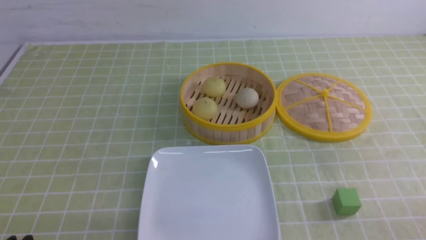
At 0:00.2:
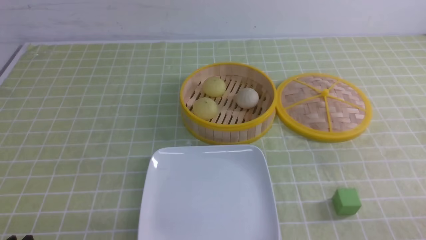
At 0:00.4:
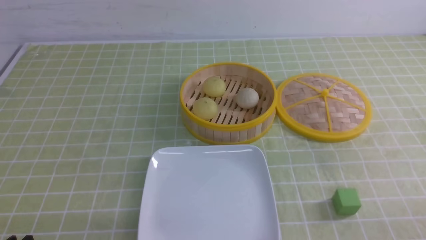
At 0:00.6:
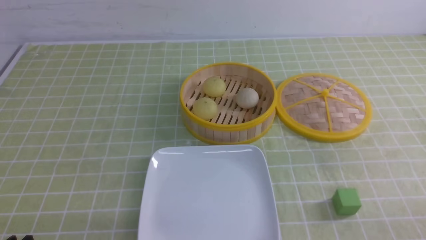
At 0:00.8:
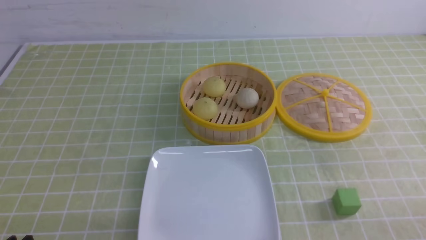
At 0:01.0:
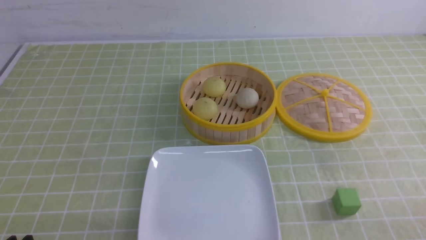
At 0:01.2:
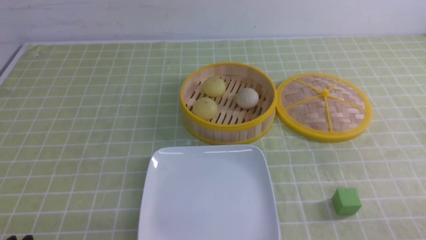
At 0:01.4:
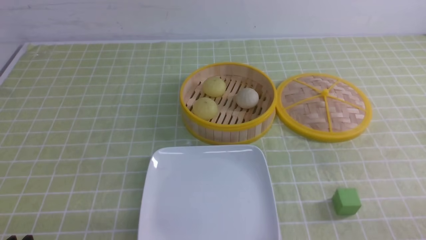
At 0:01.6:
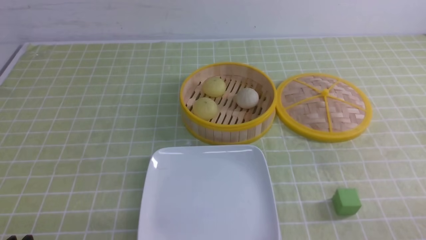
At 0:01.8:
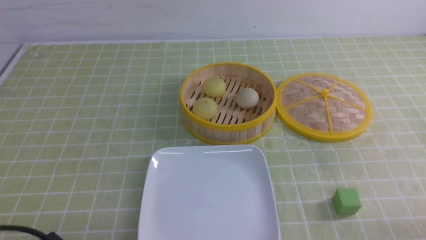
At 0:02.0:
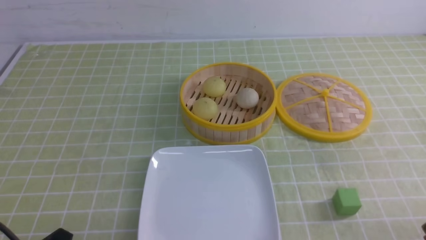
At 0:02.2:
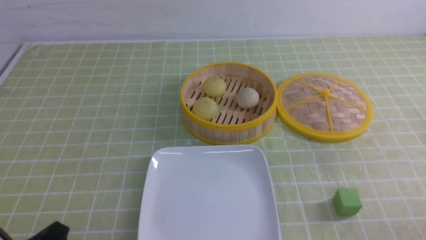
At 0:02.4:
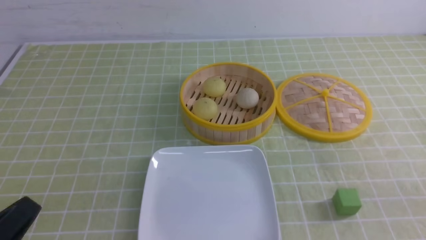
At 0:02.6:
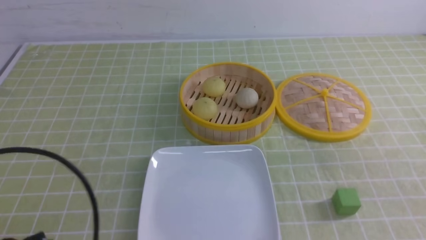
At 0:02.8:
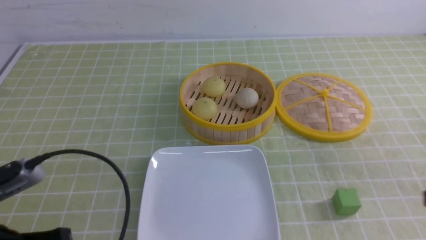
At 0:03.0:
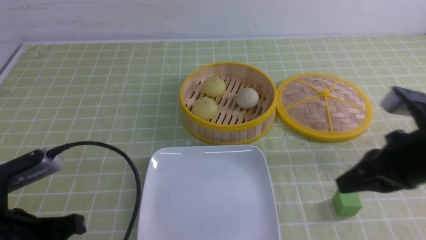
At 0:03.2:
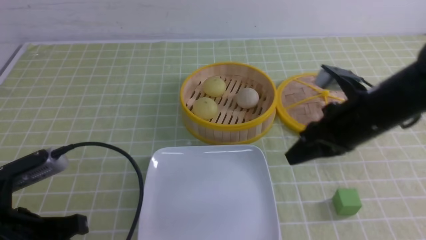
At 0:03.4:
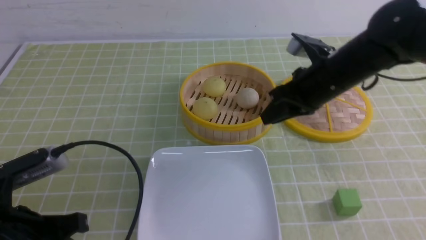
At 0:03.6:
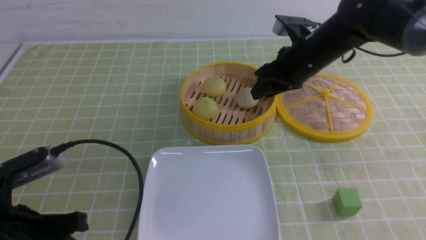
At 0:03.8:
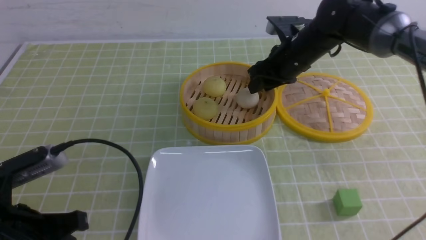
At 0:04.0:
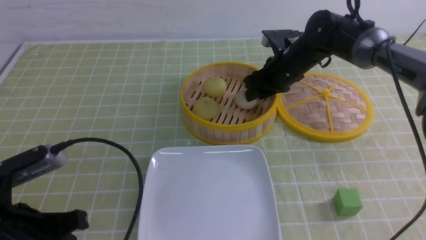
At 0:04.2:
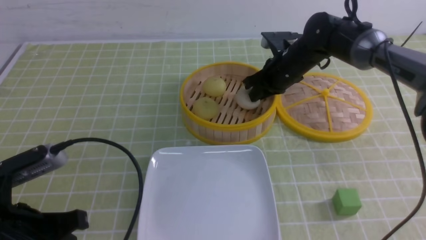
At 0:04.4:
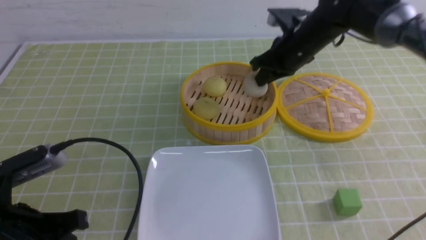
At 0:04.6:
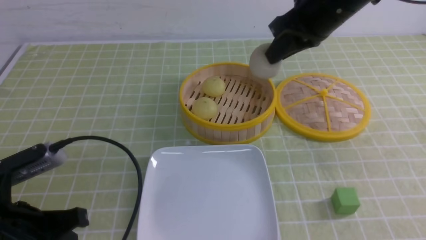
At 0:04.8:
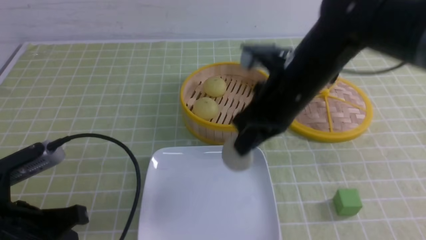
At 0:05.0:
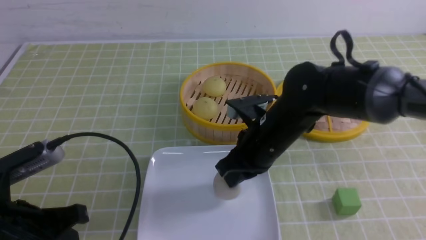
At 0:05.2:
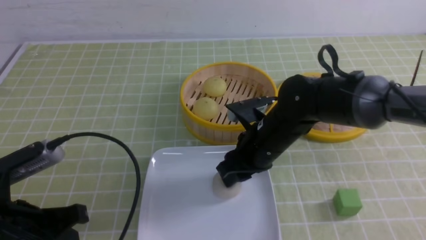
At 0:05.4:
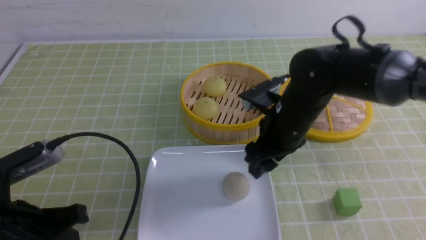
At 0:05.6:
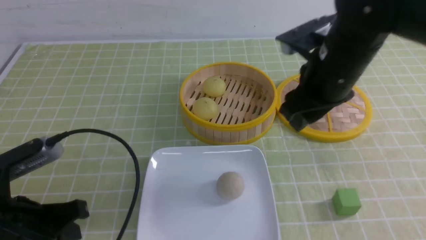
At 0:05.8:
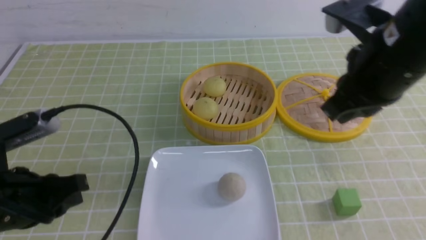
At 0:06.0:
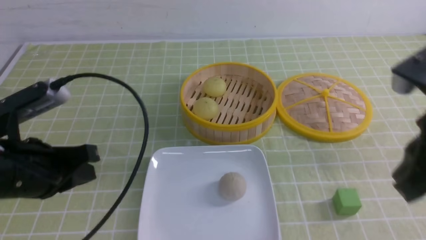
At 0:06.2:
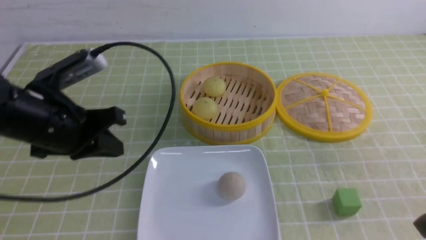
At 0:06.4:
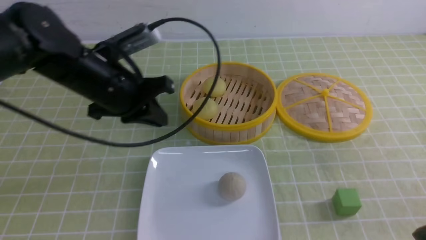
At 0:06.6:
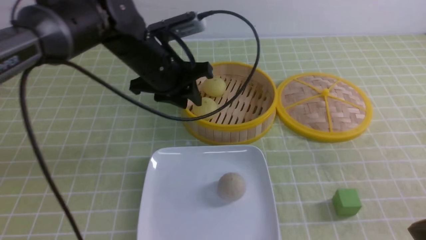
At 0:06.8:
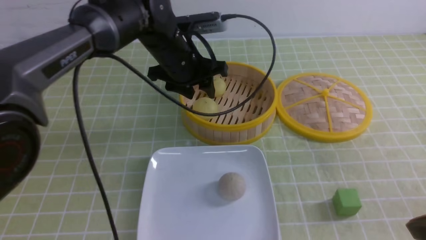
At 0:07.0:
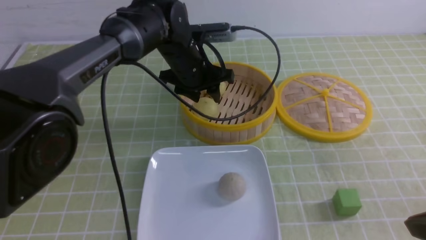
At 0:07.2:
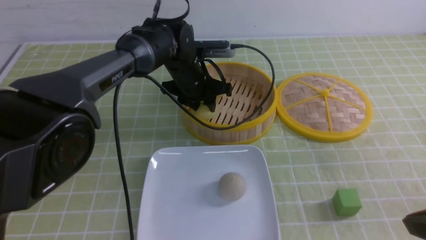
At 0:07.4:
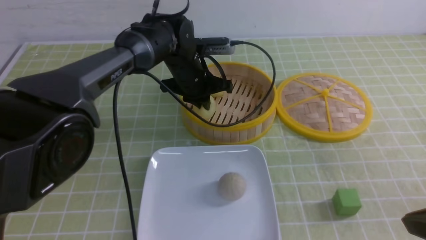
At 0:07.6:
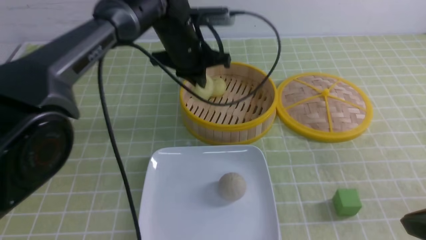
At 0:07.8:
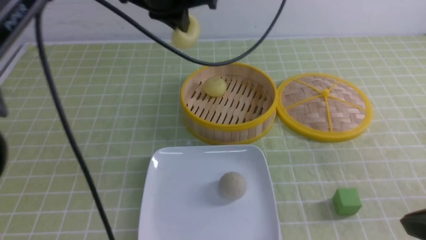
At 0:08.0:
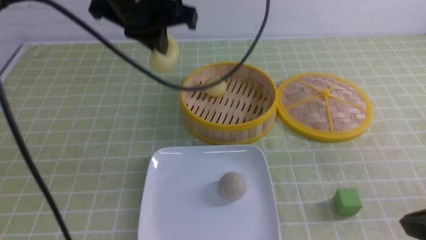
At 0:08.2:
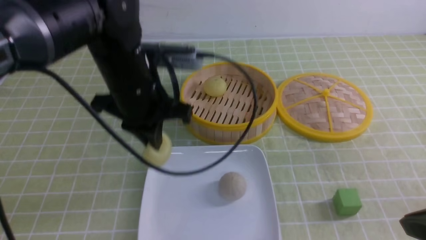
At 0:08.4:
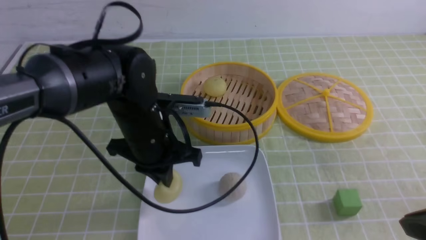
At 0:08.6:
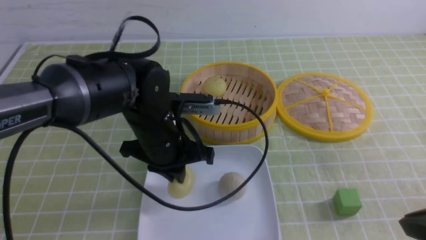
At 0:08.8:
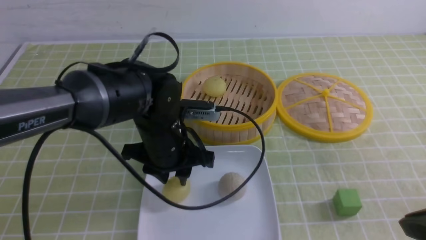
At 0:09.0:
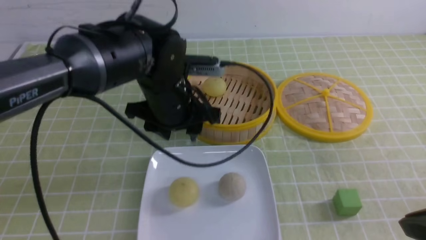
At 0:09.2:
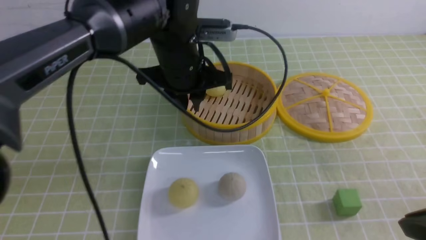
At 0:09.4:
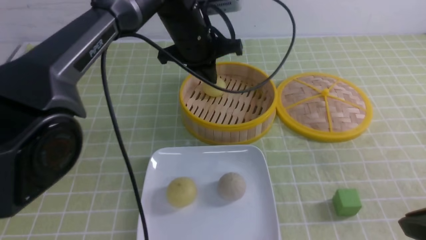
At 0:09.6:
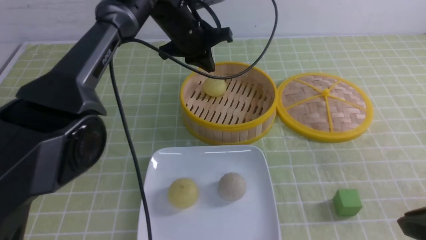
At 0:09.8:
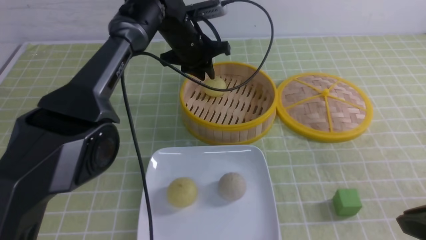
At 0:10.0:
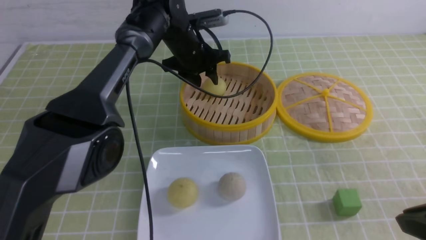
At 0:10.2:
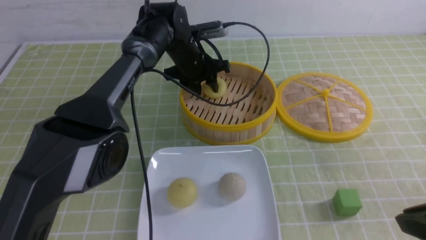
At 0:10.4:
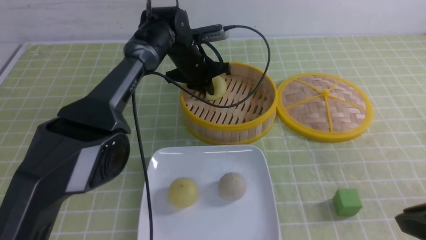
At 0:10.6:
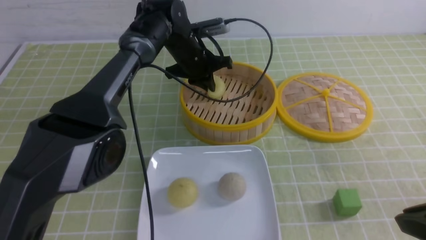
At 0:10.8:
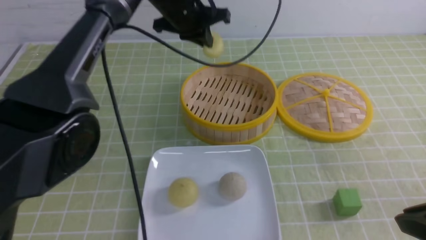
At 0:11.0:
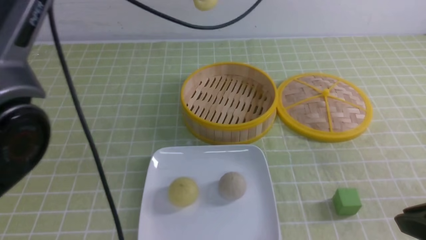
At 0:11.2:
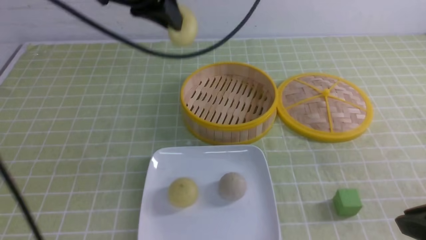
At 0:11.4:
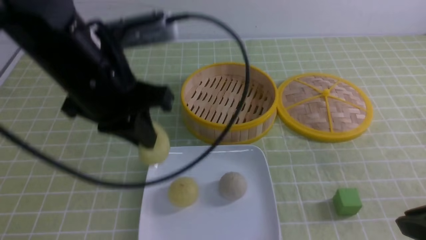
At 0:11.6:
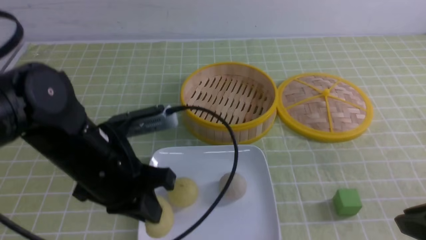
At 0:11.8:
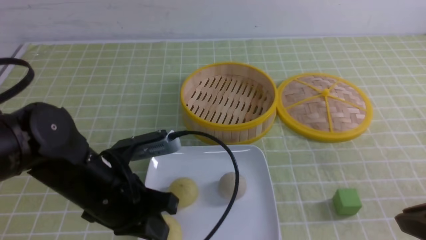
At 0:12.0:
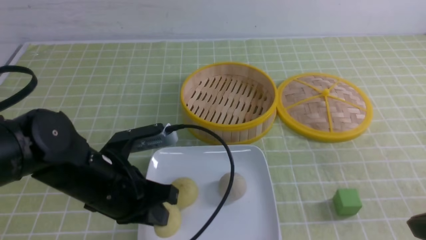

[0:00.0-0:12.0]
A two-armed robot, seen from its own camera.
Step, 0:00.0 to 0:04.2: use the right arm to grab the steamed stuffed bun that is closest to it.
Step, 0:04.4 to 0:05.2: use the right arm to put the steamed stuffed bun into the plate.
Step, 0:05.4 to 0:07.4: use the left arm to grab the steamed stuffed bun that is closest to it.
Step, 0:07.6 to 0:08.6: use the left arm to put the steamed stuffed bun into the plate.
Step, 0:08.8 to 0:10.4: use the left arm to grab the steamed stuffed bun that is closest to it.
0:01.6 to 0:03.0: The left gripper travels forward and upward by roughly 10 cm, and closes up. Meanwhile the right gripper moves forward, upward and to the left, roughly 20 cm, and closes.
0:03.0 to 0:04.4: The right gripper moves forward and to the left, approximately 25 cm, and opens and closes again.
0:04.4 to 0:06.0: The left gripper heads forward, covering some 5 cm, while the right gripper moves backward, approximately 25 cm, and opens, then closes again.
0:06.0 to 0:07.6: The right gripper is displaced downward and backward by approximately 10 cm. Meanwhile the left gripper goes some 30 cm forward and to the right, and opens, then closes again.
0:07.6 to 0:09.0: The left gripper moves up and down over some 15 cm, changing direction 2 times, and opens up.
0:09.0 to 0:10.4: The left gripper is displaced forward by roughly 20 cm, and closes.
0:10.4 to 0:12.0: The left gripper is displaced backward by roughly 30 cm.

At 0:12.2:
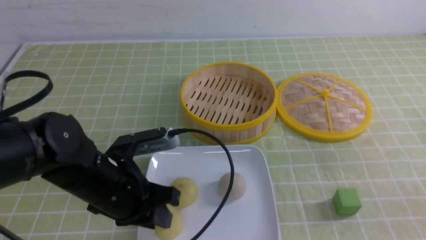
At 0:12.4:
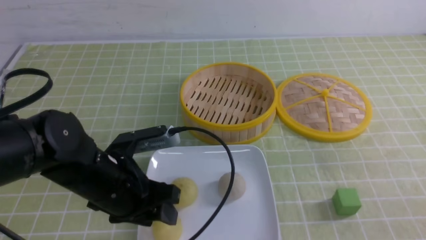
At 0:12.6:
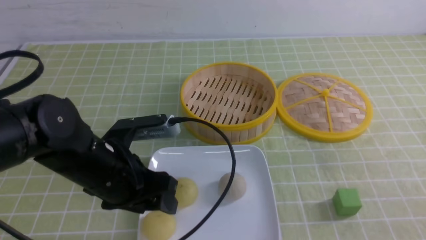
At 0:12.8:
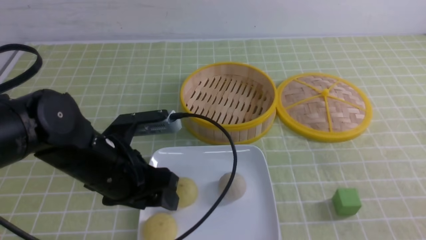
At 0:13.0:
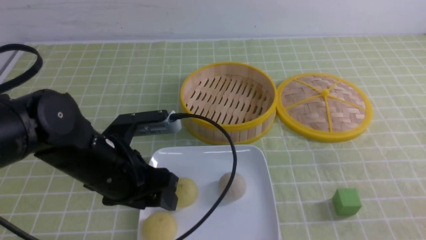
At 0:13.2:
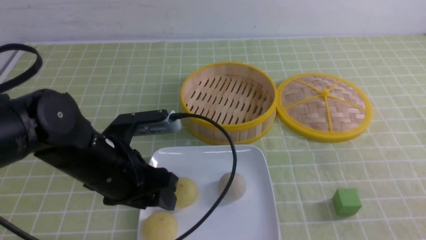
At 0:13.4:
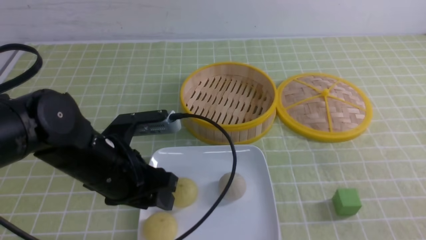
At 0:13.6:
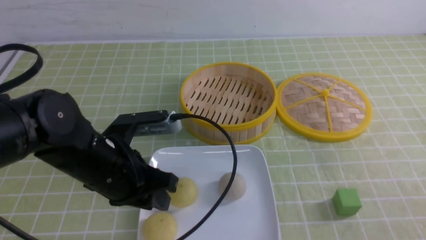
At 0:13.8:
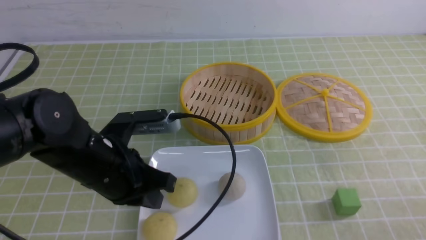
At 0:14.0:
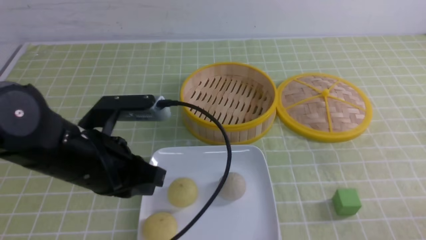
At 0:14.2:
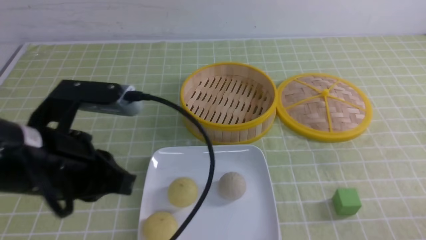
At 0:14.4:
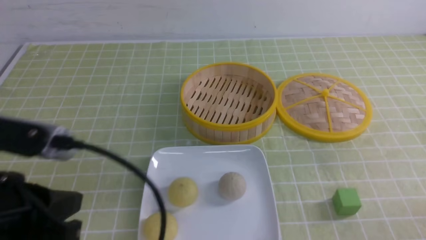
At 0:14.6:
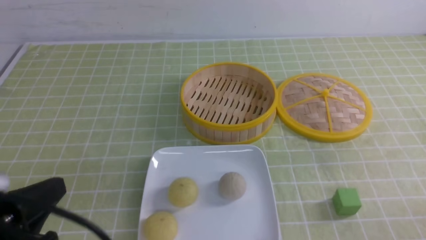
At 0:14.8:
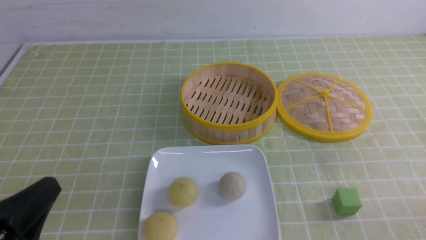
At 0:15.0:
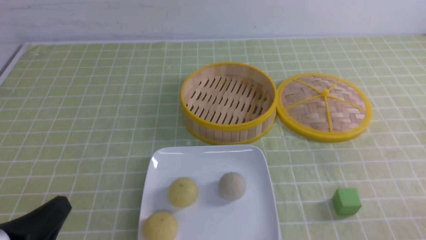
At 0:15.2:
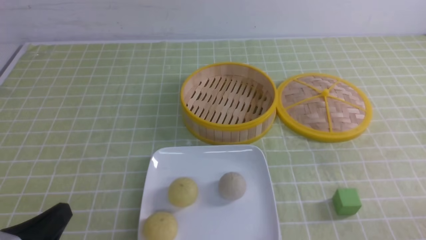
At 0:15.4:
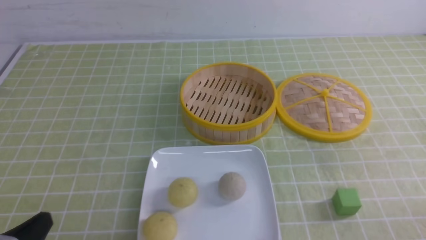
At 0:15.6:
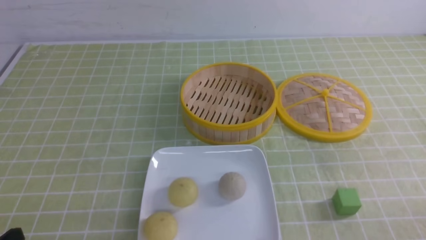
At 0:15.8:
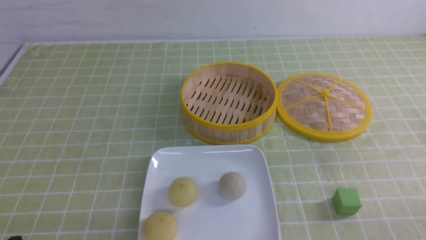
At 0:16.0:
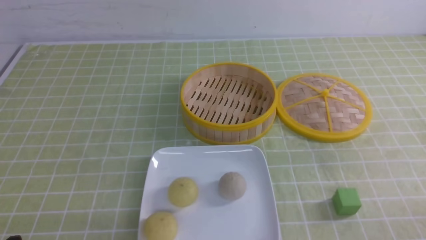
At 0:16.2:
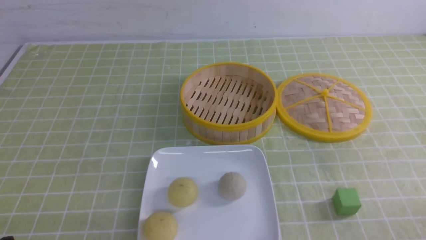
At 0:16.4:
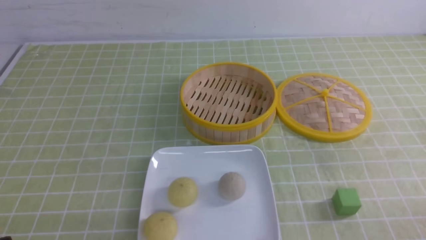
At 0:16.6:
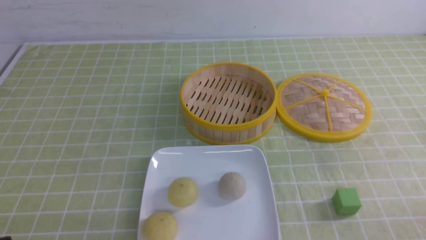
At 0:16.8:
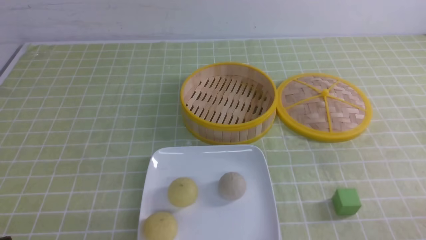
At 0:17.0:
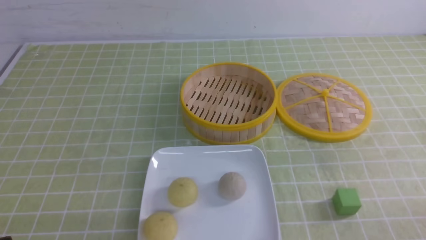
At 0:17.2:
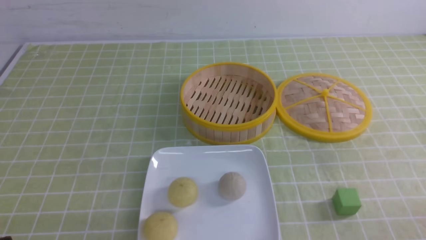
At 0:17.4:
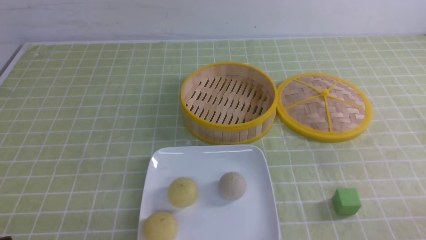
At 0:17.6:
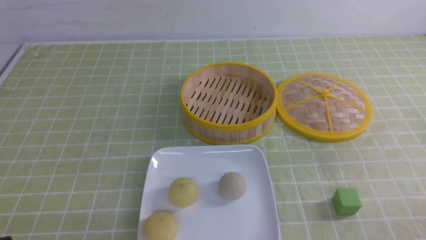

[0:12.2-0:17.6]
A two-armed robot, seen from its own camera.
0:12.2 to 0:13.6: The left gripper opens and closes again, while the right gripper travels downward by some 10 cm.
0:13.6 to 0:15.0: The right gripper shifts roughly 5 cm downward. The left gripper travels backward and to the left by some 20 cm, and closes up.
0:15.0 to 0:16.2: The left gripper moves downward, about 5 cm.
0:16.2 to 0:17.6: Neither gripper changes place.
